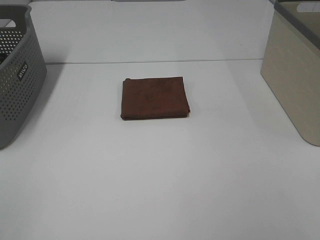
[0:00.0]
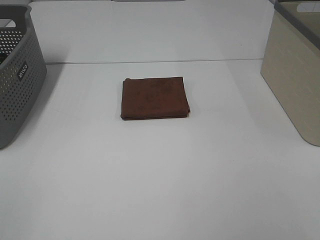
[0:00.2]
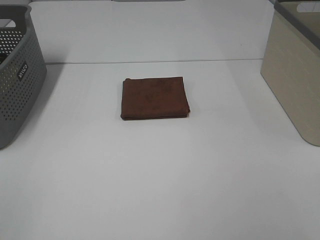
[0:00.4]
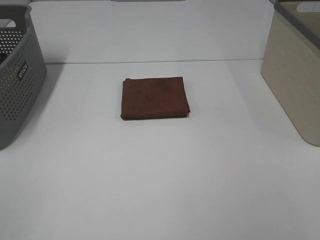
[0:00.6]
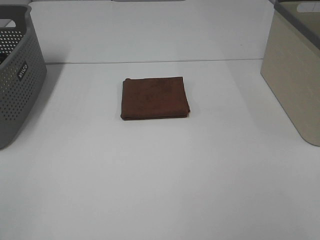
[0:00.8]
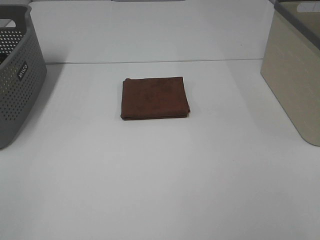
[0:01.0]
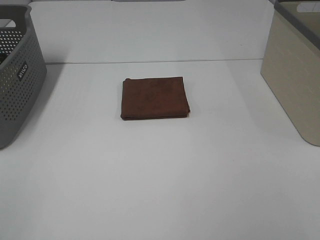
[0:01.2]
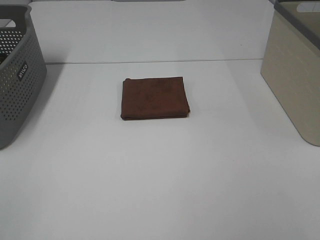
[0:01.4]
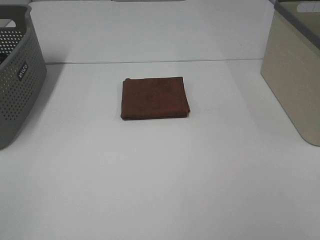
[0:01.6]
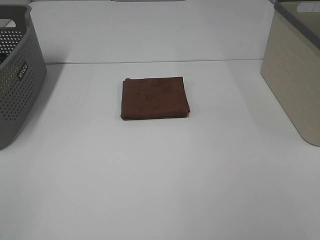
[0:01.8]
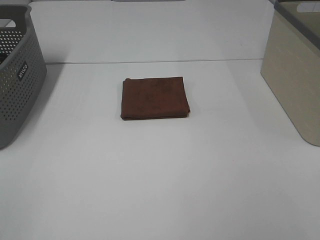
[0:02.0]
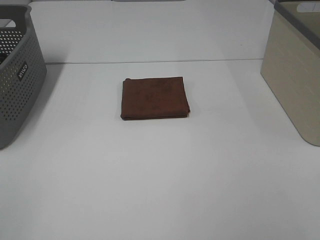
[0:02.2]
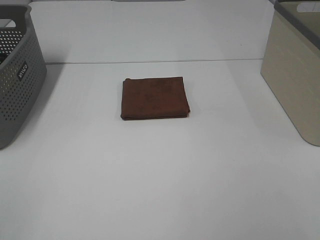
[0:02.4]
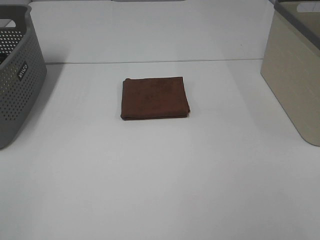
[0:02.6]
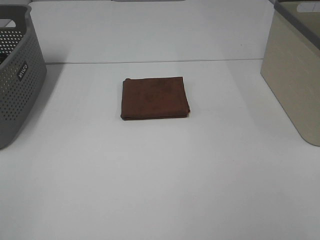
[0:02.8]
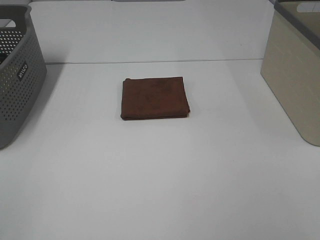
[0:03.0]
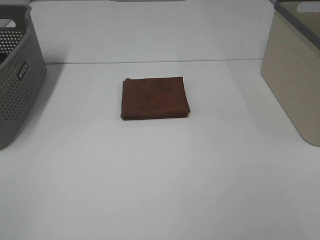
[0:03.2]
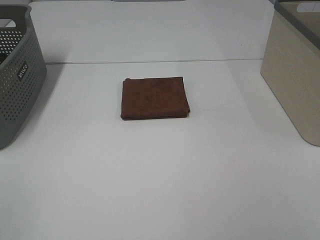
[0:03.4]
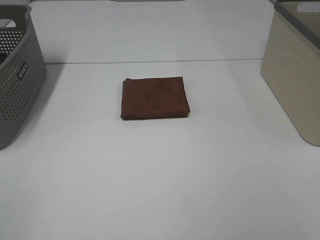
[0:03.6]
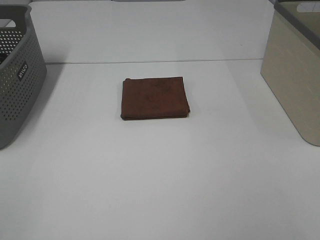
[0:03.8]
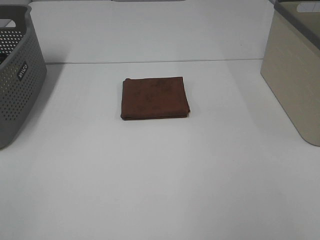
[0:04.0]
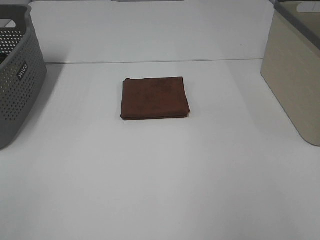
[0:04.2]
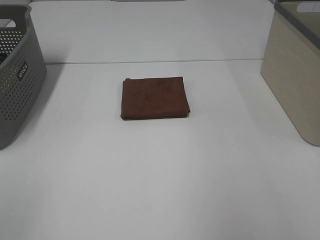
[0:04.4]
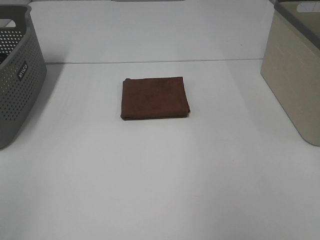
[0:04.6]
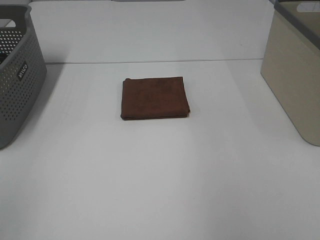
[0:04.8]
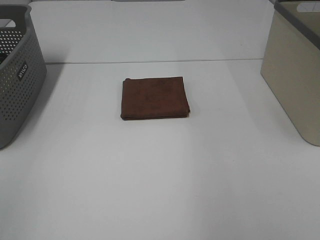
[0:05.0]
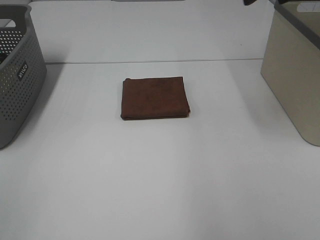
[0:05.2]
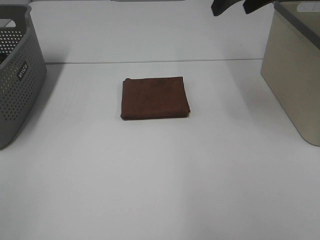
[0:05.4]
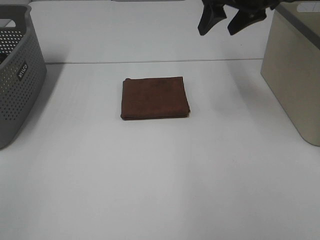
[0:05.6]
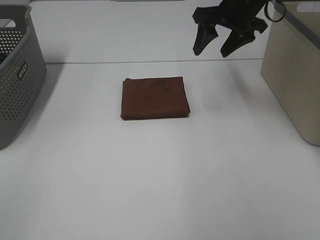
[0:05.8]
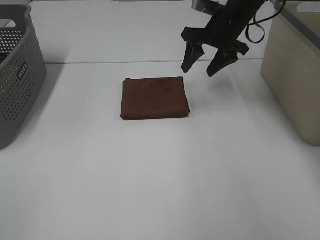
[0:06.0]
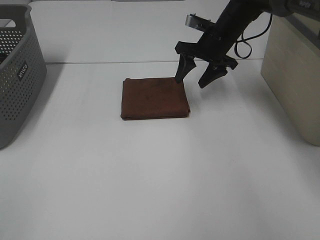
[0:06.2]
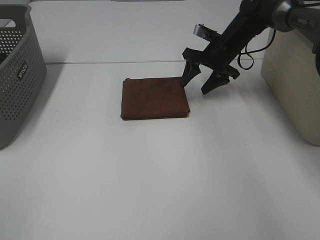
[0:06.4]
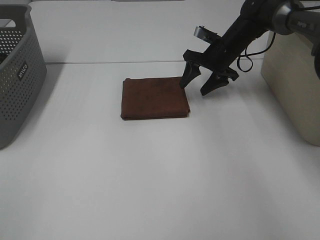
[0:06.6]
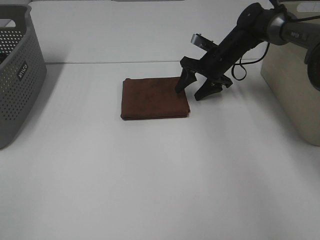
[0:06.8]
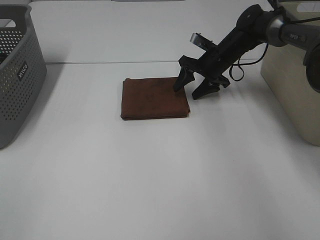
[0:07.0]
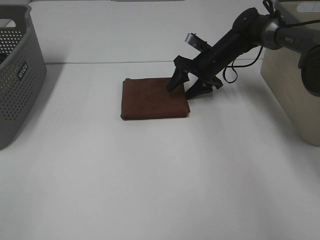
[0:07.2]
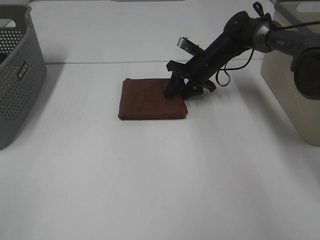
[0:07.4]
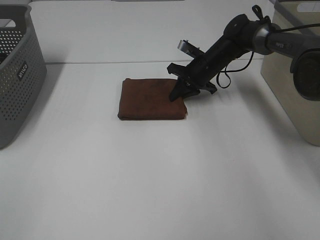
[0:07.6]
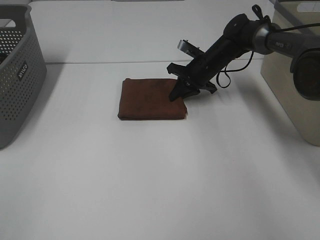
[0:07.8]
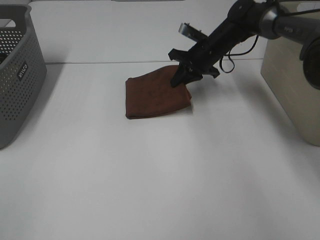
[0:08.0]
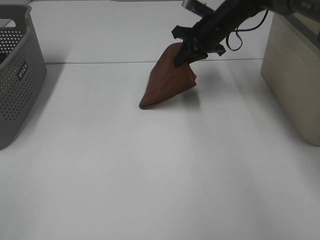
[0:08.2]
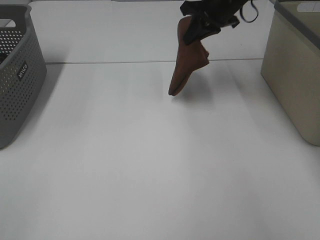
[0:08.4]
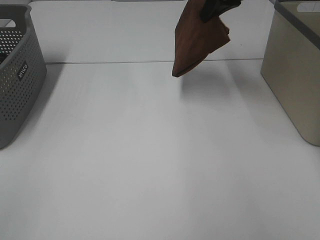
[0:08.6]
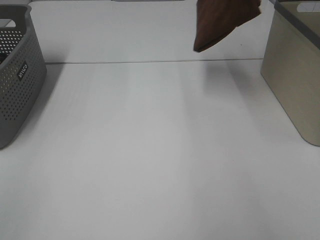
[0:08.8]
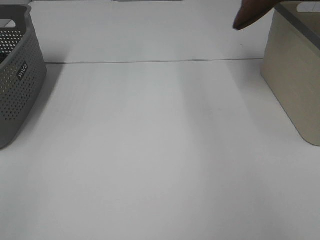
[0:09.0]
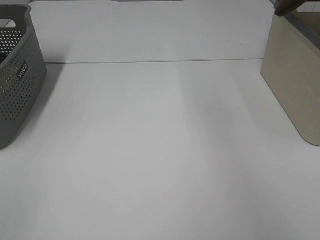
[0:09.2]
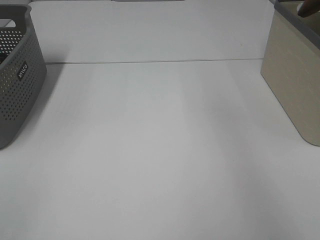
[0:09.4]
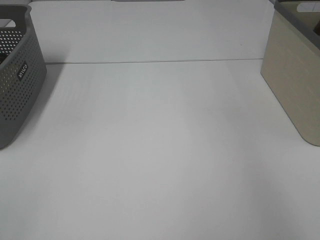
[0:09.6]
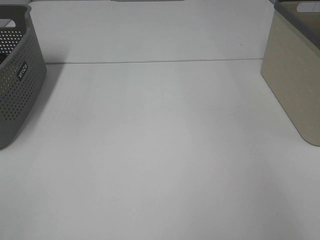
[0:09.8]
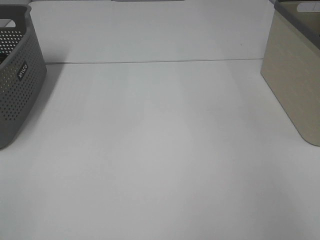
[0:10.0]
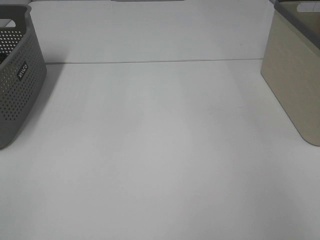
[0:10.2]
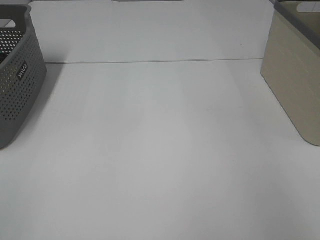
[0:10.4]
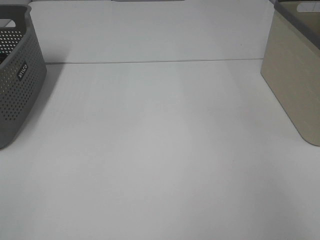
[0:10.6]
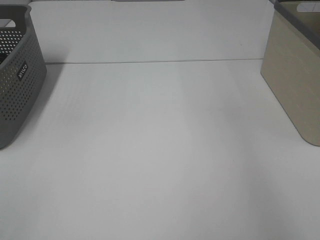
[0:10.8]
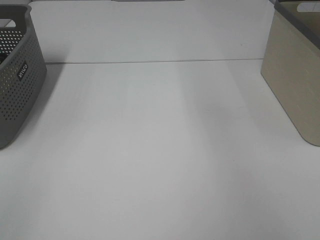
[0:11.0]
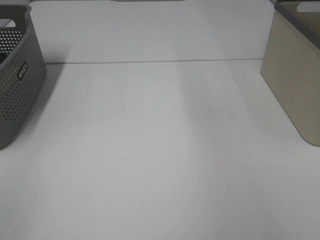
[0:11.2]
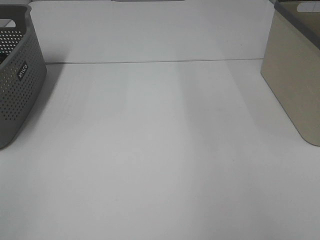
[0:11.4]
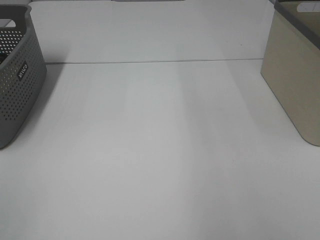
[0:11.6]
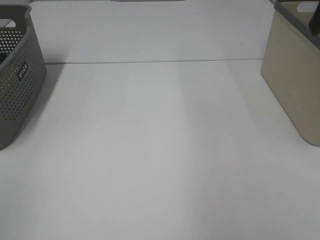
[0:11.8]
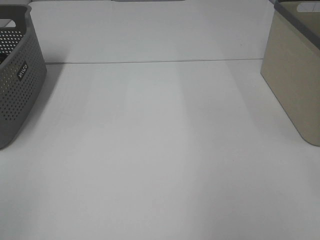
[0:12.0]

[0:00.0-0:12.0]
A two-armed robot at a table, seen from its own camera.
Step, 0:00.0 to 0:07.6: Right hand: grab the folded brown towel.
Step, 0:07.8 to 0:10.2: Right hand: place the brown towel in right basket.
0:00.0 to 0:03.0: Both grippers stay put.
0:04.4 to 0:06.0: The right gripper shifts about 40 cm forward, downward and to the left.
0:06.0 to 0:07.6: The right gripper travels downward by about 10 cm, and closes its fingers.
0:07.6 to 0:09.0: The right gripper goes roughly 35 cm upward and to the right.
0:09.0 to 0:10.4: The right gripper heads to the right and downward, covering approximately 15 cm, and opens its fingers.

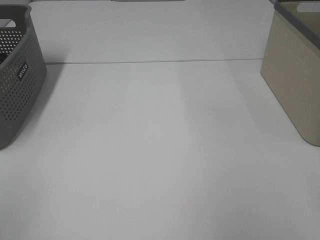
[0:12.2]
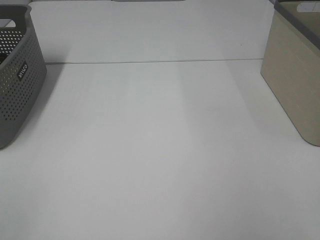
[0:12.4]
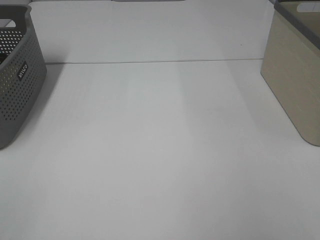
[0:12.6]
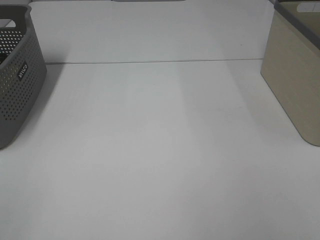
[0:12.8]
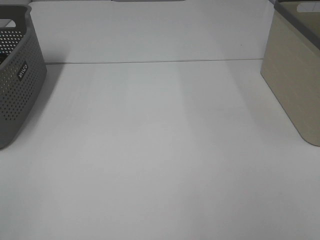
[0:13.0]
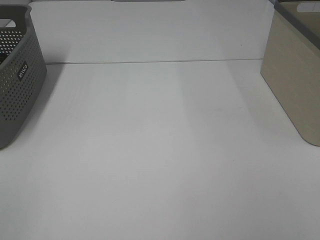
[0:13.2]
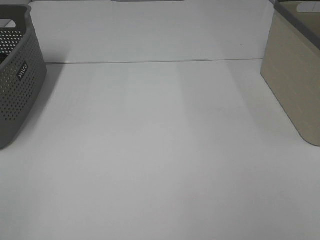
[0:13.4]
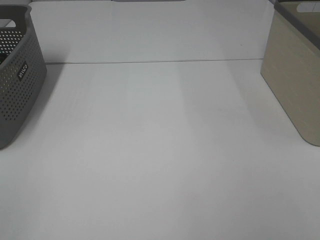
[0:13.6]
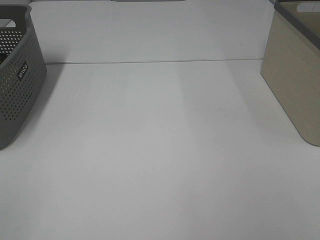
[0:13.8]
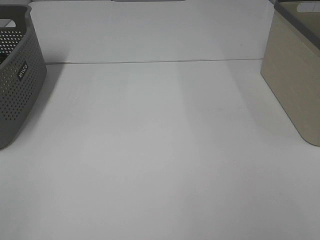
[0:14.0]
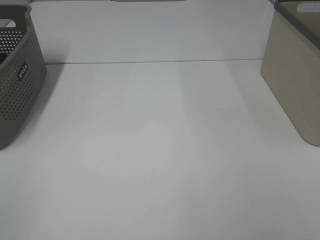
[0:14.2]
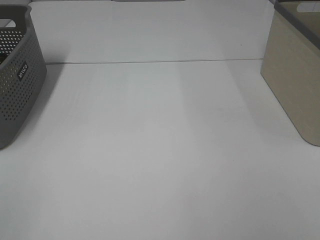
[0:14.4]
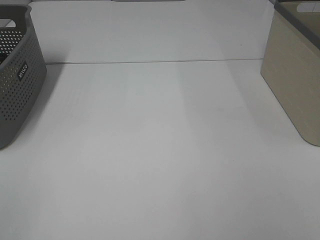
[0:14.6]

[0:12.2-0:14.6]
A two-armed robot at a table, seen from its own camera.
0:13.4 to 0:14.6: Both grippers stay put.

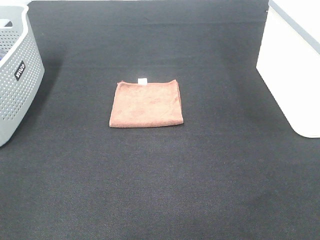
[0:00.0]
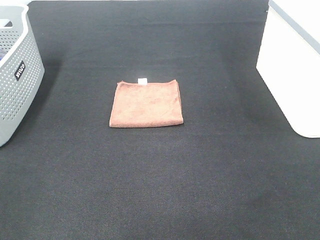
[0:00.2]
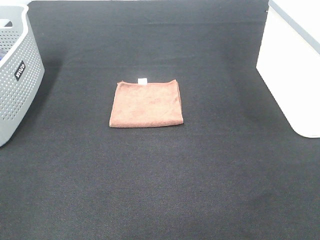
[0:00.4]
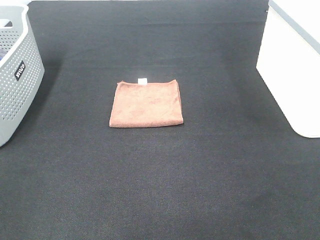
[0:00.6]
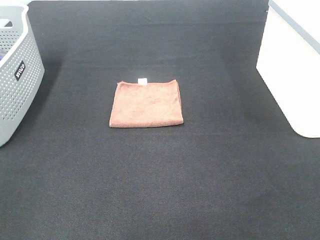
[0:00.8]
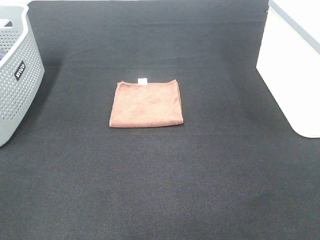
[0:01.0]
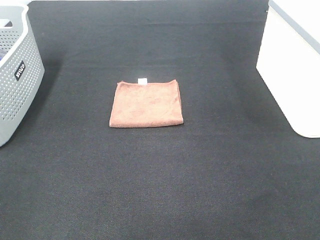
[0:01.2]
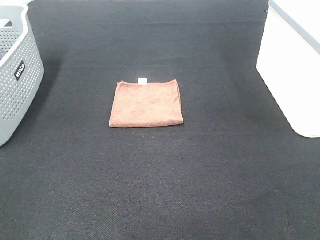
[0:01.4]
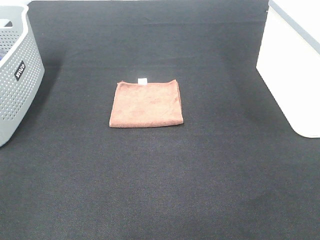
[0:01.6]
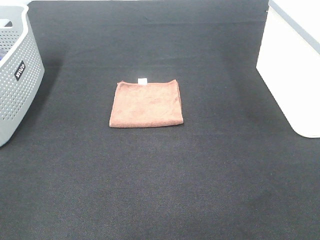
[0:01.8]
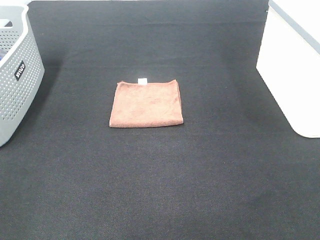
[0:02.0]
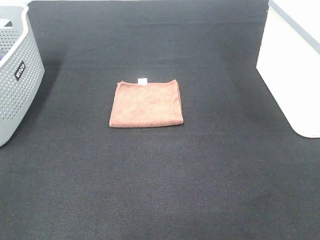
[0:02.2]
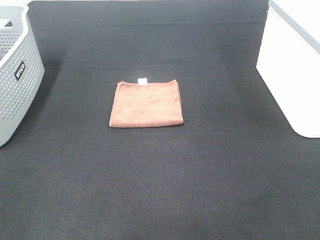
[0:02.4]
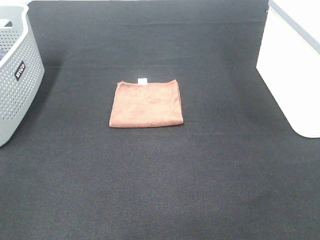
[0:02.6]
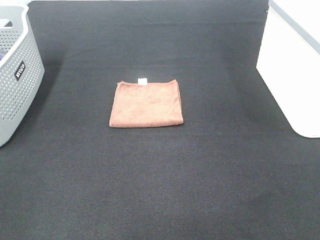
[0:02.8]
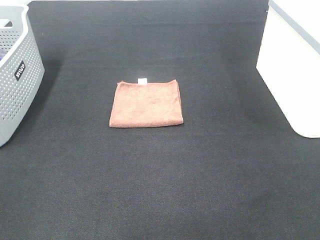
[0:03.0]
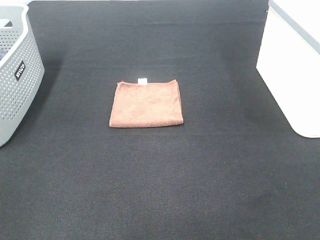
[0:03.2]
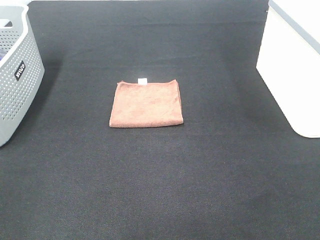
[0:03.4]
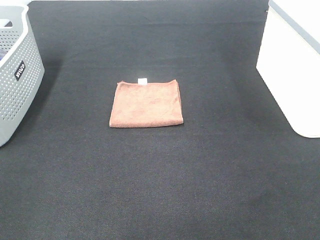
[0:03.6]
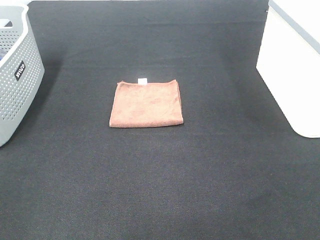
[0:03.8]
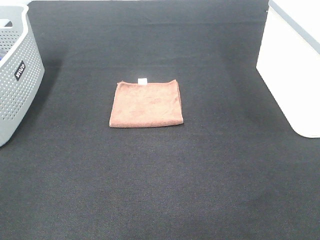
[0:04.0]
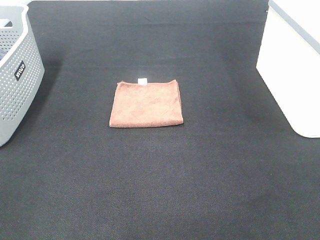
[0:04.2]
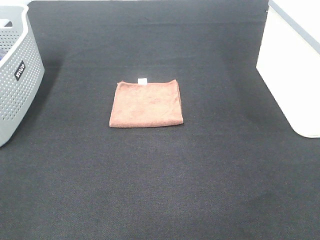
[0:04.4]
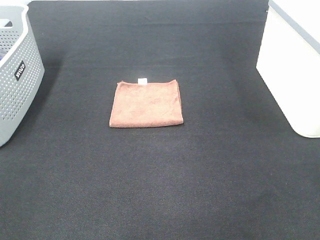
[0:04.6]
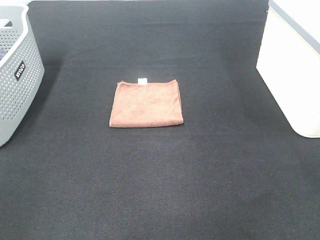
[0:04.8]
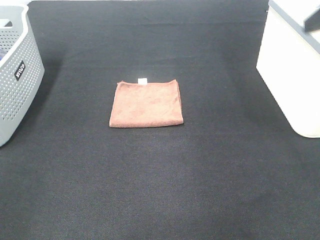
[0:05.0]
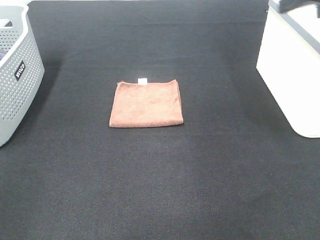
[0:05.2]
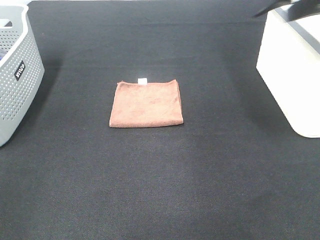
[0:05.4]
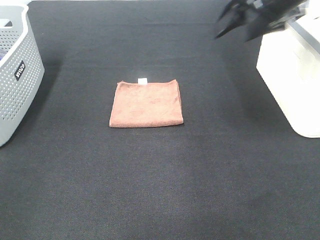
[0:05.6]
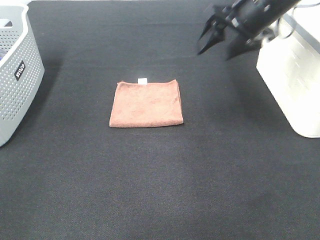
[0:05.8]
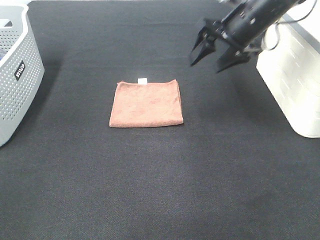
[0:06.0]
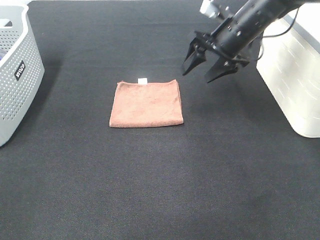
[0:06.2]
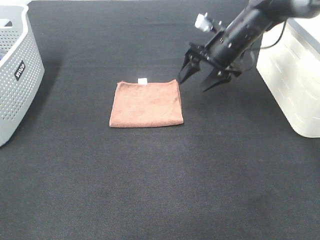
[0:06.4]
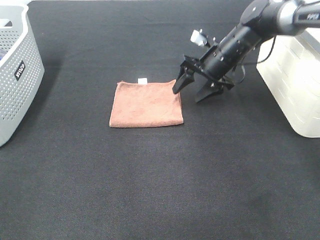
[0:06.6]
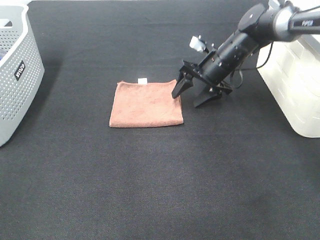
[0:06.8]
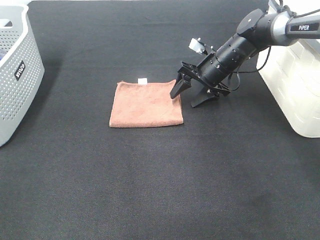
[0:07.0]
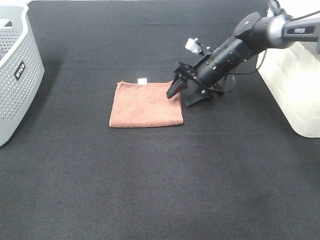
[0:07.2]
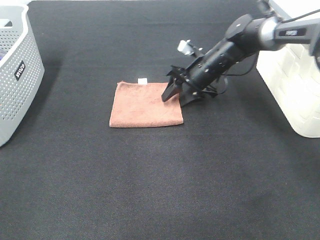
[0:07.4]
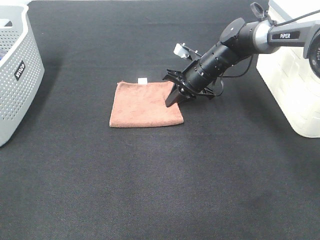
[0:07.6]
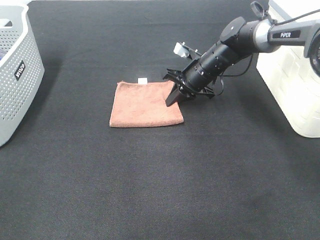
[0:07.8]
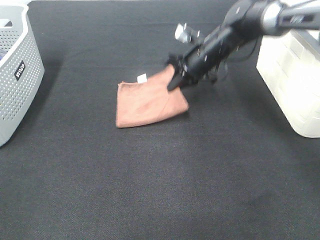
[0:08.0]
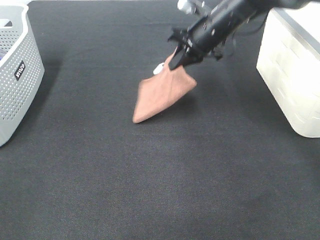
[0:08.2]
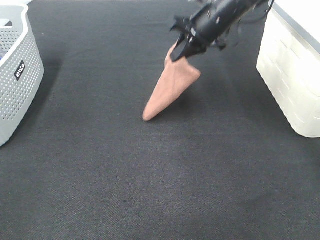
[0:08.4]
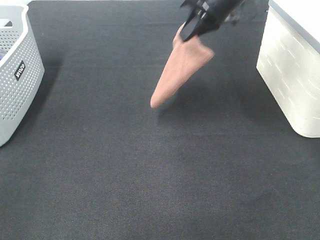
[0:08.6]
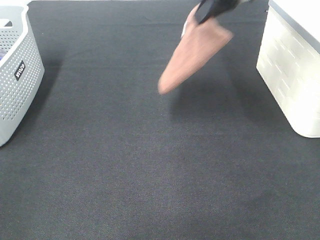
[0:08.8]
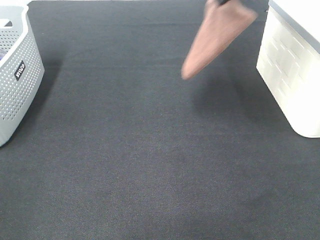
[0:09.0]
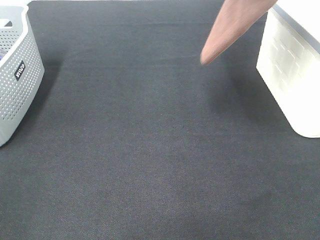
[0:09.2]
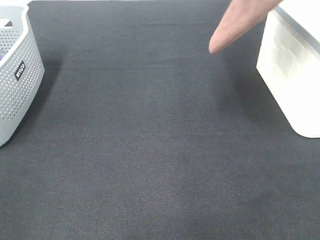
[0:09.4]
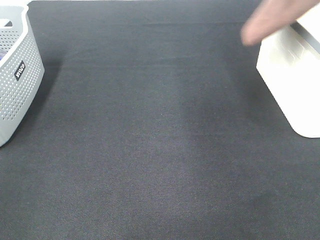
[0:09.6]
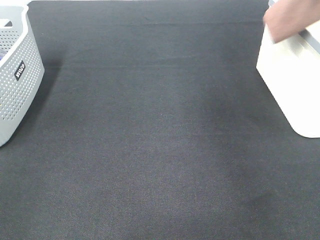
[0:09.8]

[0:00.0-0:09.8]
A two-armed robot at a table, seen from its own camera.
Step, 0:00.0 to 0:07.8: Right hand: grab the folded brown towel.
0:00.0 to 0:02.8: The two grippers keep their place.
0:04.2 to 0:05.6: The right gripper travels forward by about 35 cm.
0:05.6 to 0:07.0: The right gripper shifts roughly 25 cm downward and forward.
0:07.0 to 0:08.4: The right gripper heads upward, covering some 15 cm, and closes up.
0:08.4 to 0:09.8: The right gripper travels to the right and upward by about 30 cm.
